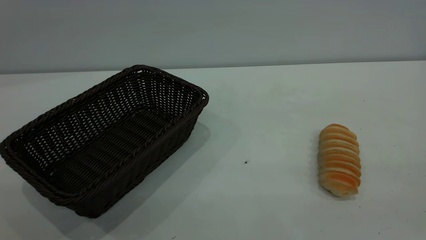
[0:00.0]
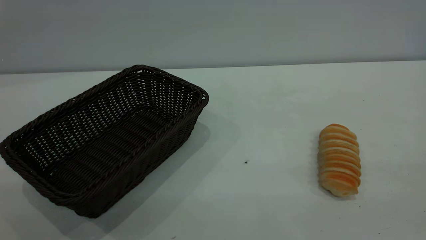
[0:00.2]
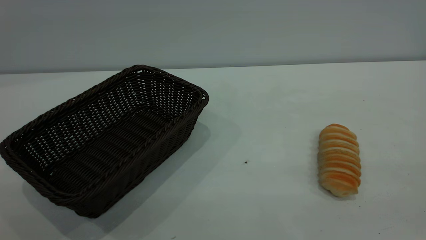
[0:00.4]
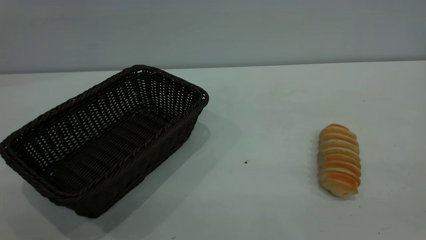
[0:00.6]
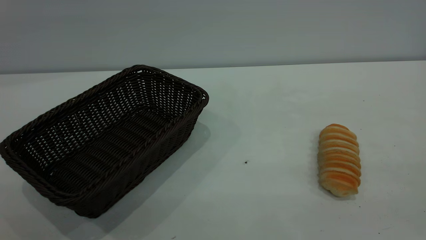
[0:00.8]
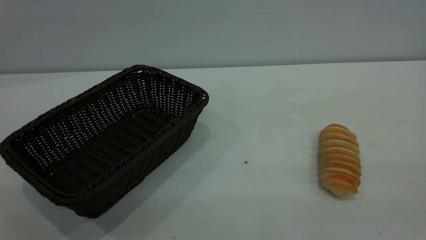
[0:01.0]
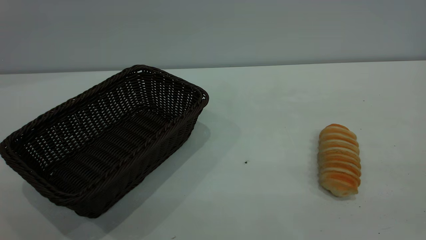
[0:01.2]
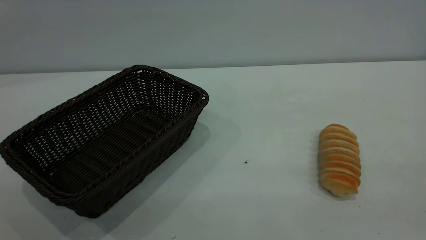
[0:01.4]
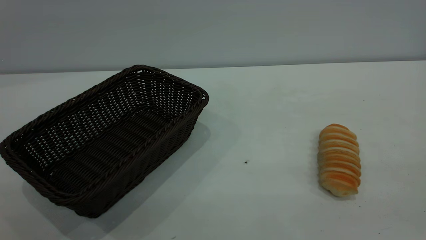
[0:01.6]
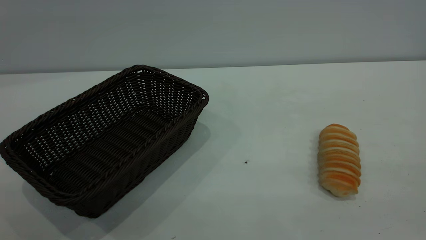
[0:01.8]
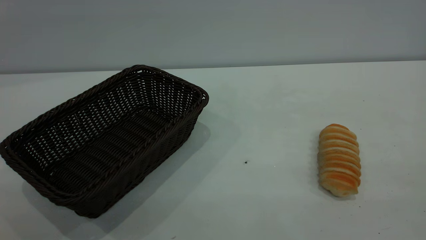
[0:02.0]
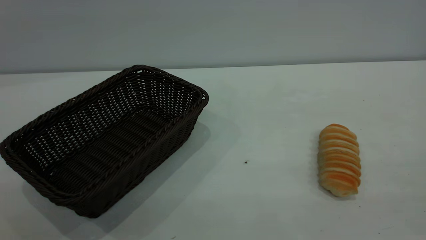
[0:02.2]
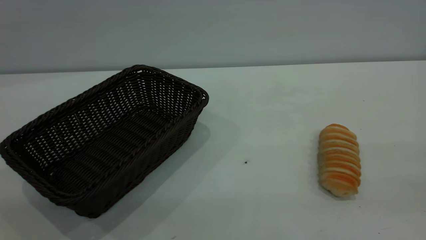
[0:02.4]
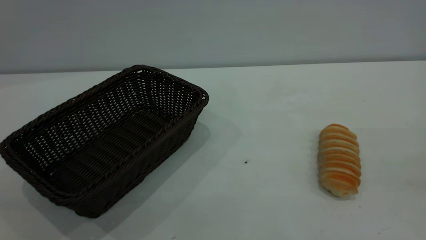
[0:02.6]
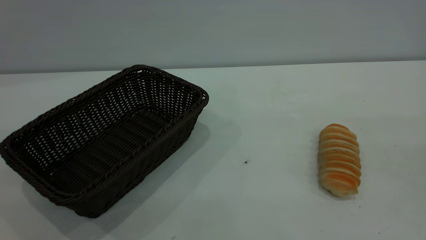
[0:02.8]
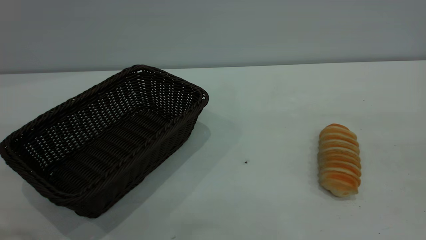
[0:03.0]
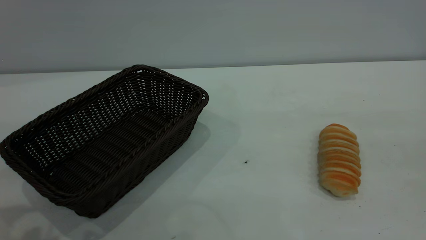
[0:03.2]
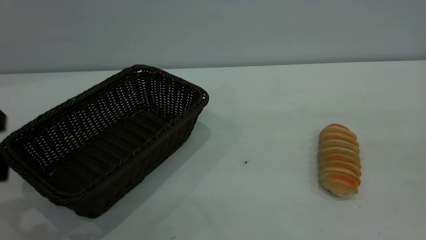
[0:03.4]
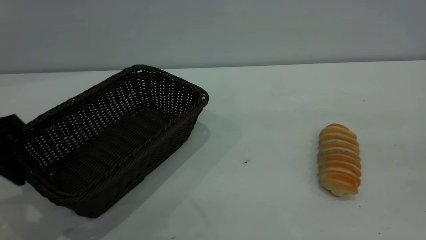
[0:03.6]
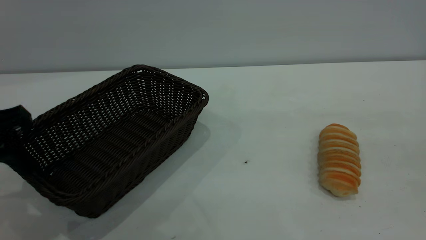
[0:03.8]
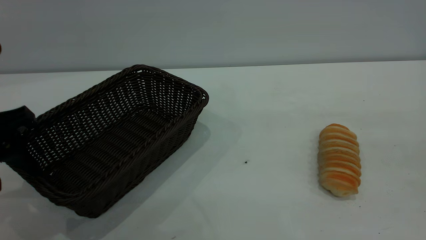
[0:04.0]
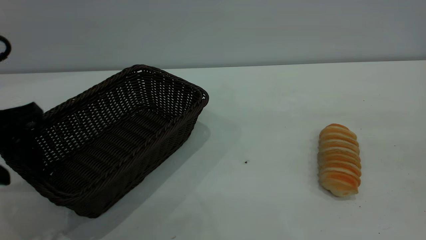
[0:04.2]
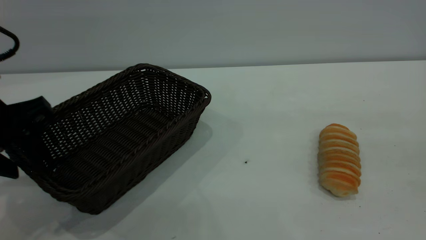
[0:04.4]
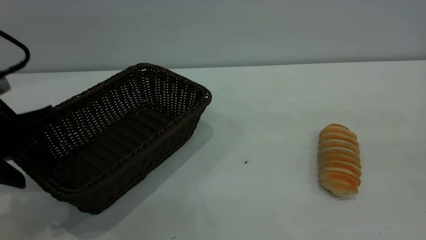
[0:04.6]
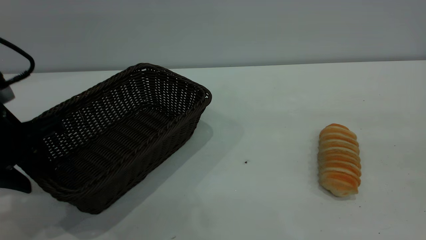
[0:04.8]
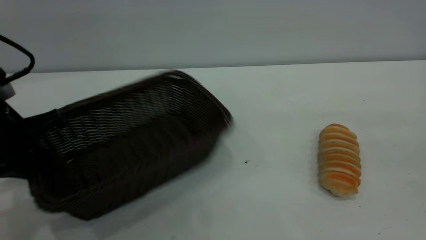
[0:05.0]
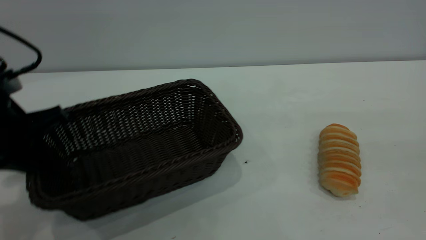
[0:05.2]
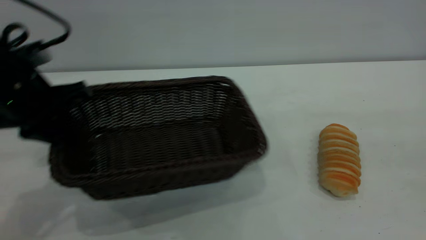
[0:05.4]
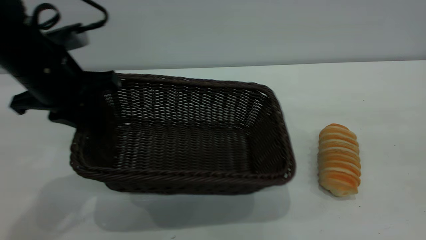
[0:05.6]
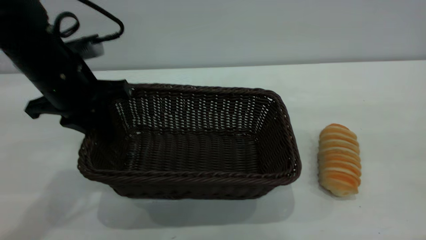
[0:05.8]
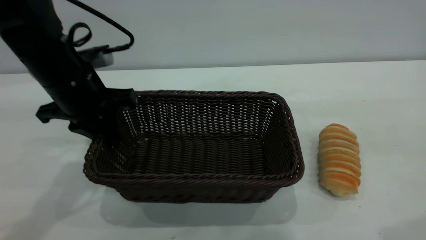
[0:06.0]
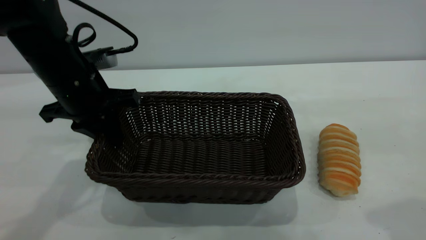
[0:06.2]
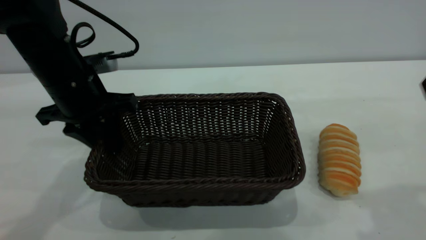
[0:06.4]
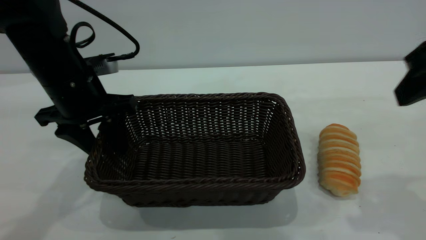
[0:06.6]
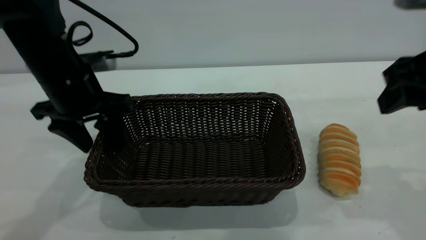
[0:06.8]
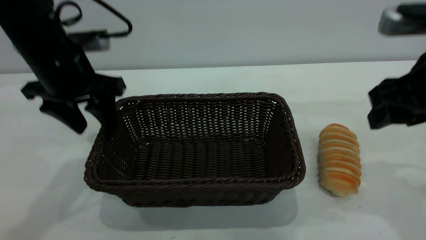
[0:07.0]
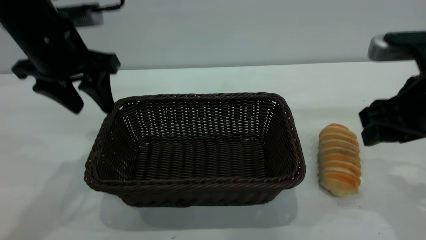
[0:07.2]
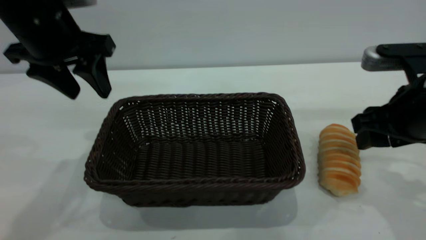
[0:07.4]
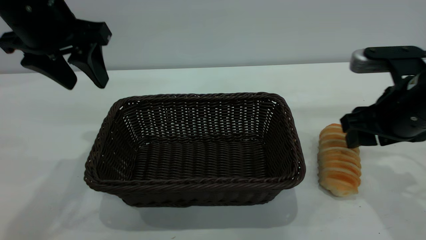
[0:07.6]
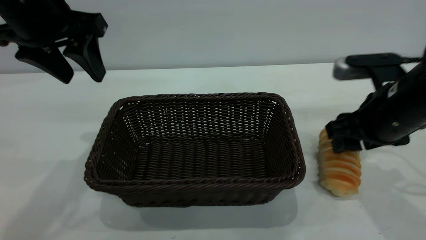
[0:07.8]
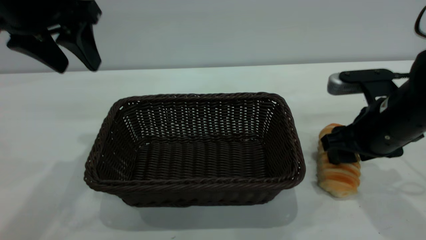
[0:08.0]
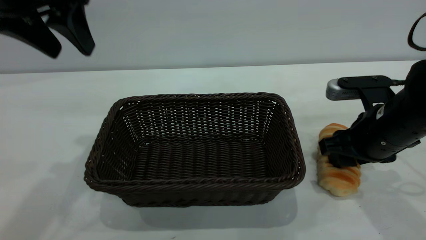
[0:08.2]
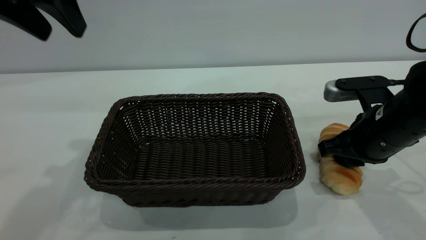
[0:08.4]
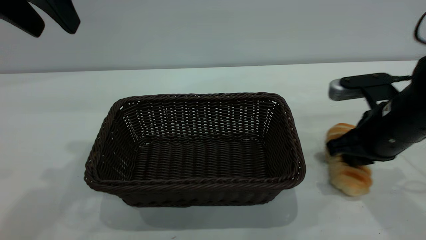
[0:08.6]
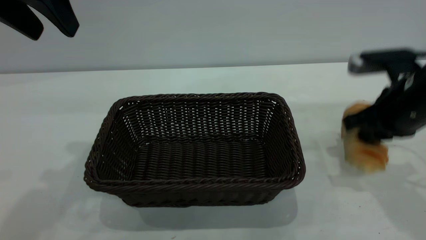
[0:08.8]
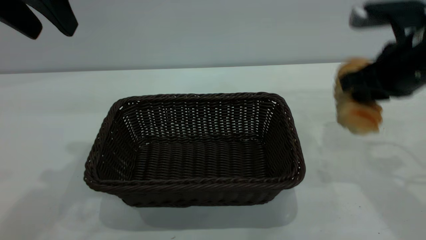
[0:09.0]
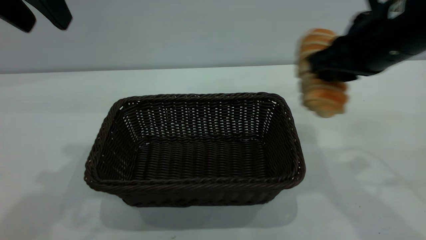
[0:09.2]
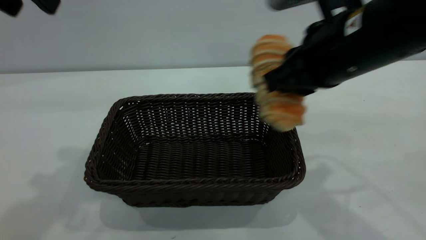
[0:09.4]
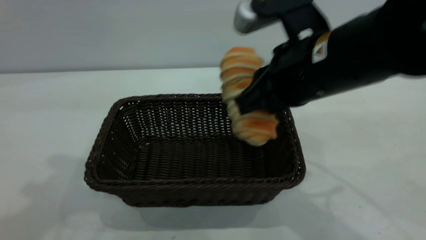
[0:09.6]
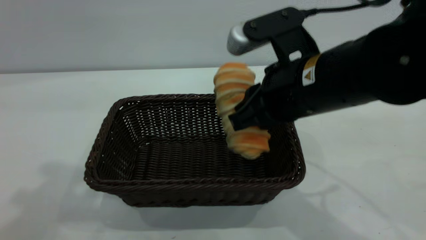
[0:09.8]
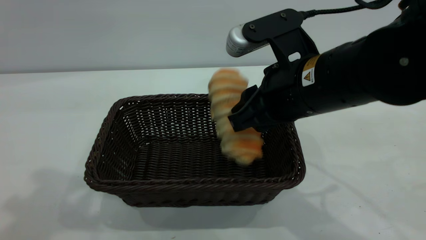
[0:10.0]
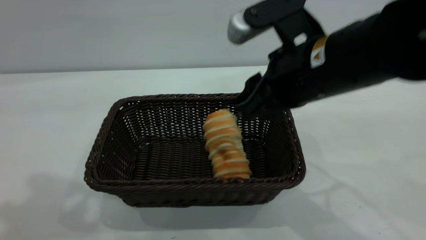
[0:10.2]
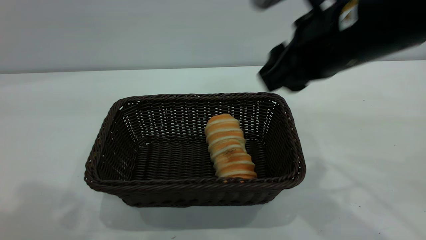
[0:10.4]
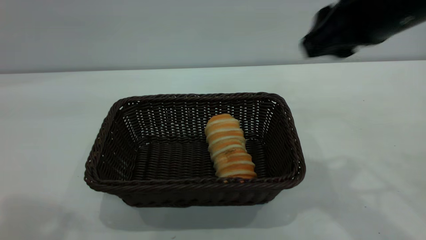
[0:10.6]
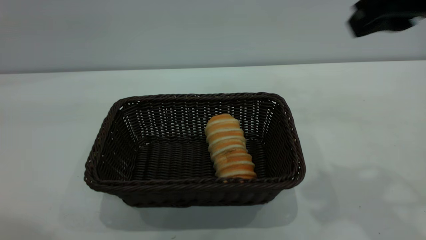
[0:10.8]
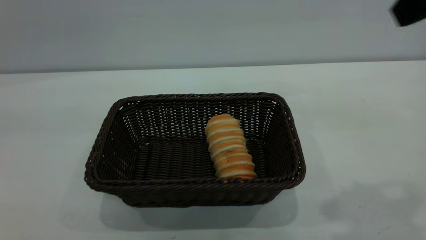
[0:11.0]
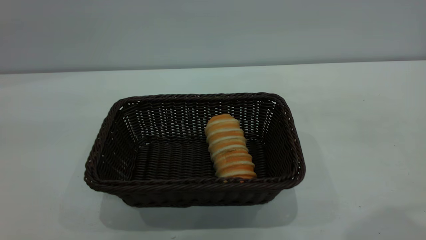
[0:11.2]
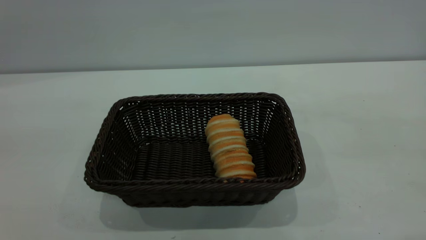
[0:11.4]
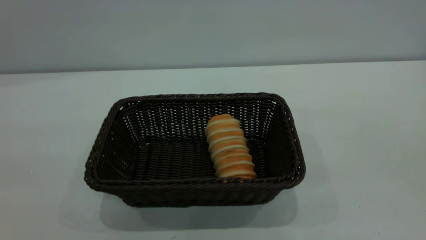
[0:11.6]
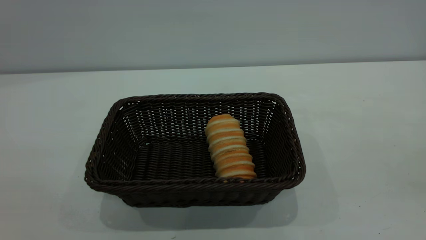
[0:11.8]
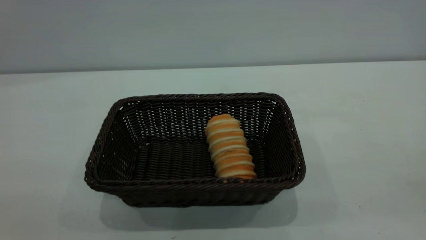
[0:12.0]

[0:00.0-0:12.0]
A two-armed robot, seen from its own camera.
Task of the whole recording: One hand grasps the black basket and places it in the middle of the table, while the other hand picks up the long bread and puts it into the black basket.
Step, 0:00.0 to 0:07.2: Move the basket to the center of view.
Step, 0:09.0 to 0:10.4: place the bread into the basket.
0:00.0 to 0:01.6: The two grippers keep their place.
0:03.0 to 0:04.4: The left gripper is displaced downward and forward by approximately 15 cm.
0:04.4 to 0:06.0: The right gripper goes about 5 cm forward; the left gripper heads forward and to the right, covering roughly 10 cm, and closes.
0:06.0 to 0:07.6: The right gripper heads downward and forward, covering roughly 25 cm, and opens up; the left gripper moves upward, some 10 cm, and opens.
0:07.6 to 0:09.0: The grippers both shift upward by some 5 cm. The right gripper closes its fingers.
0:09.0 to 0:10.4: The right gripper travels to the left by approximately 10 cm, and opens; the left gripper moves upward and backward, approximately 15 cm.
0:10.4 to 0:12.0: The left gripper heads backward, covering approximately 25 cm; the right gripper goes approximately 30 cm backward, to the right and upward.

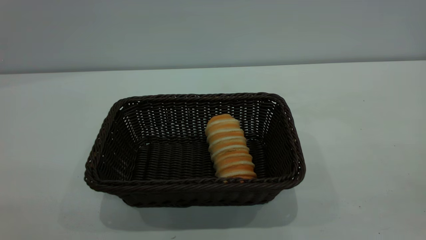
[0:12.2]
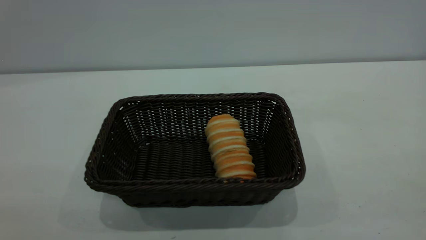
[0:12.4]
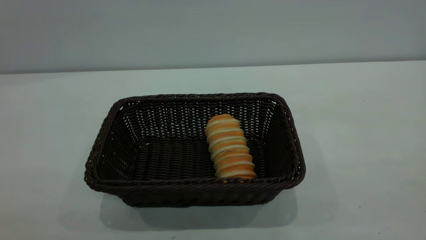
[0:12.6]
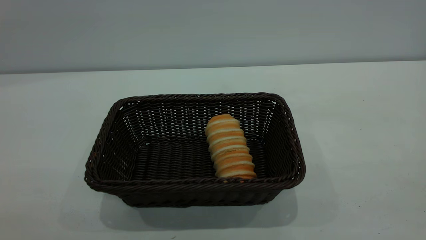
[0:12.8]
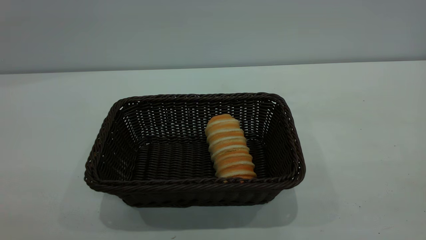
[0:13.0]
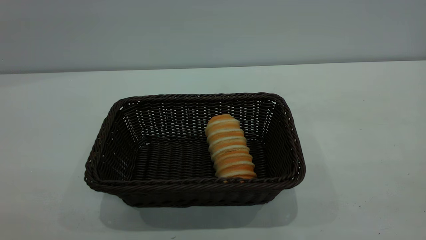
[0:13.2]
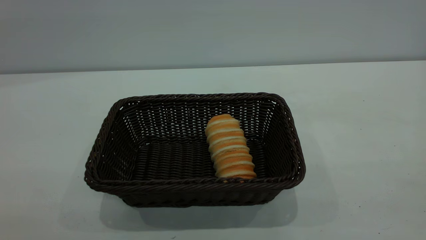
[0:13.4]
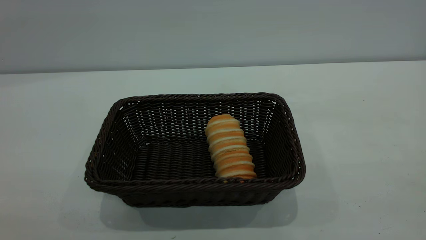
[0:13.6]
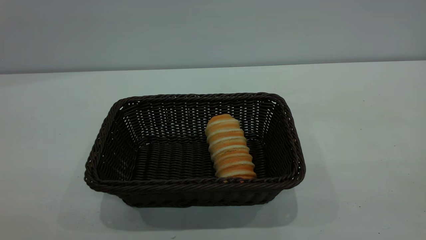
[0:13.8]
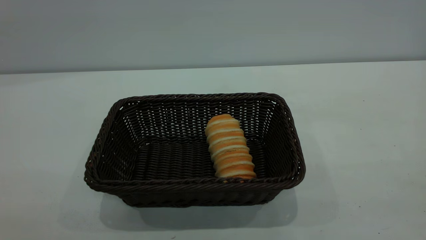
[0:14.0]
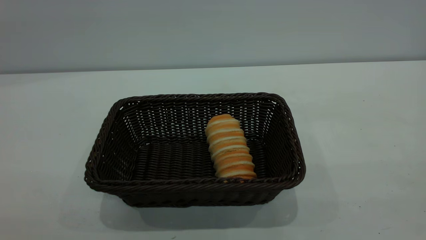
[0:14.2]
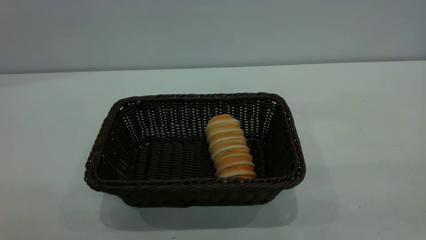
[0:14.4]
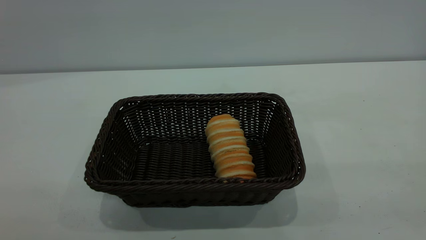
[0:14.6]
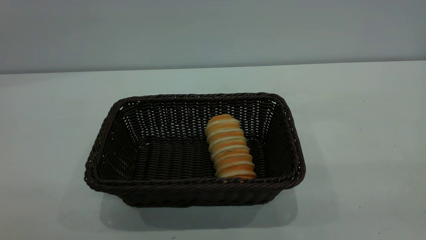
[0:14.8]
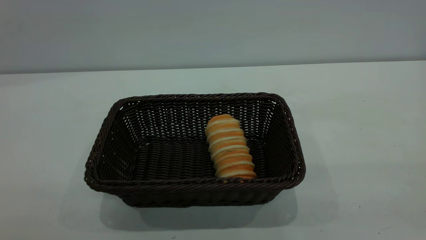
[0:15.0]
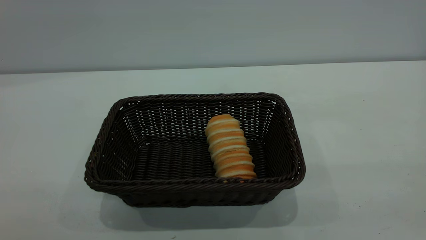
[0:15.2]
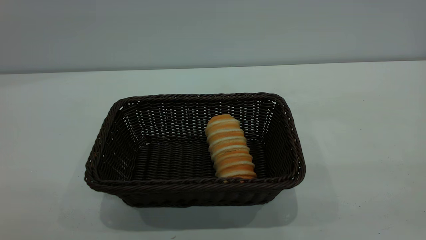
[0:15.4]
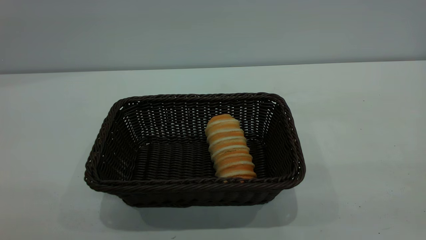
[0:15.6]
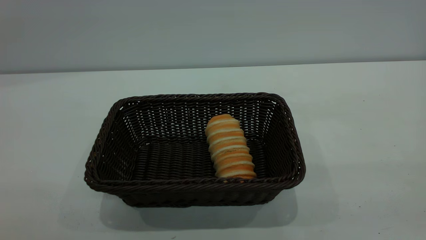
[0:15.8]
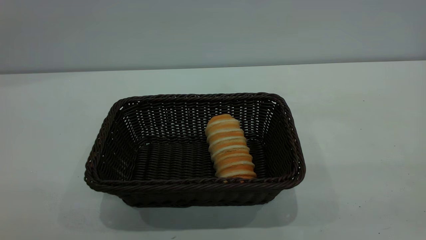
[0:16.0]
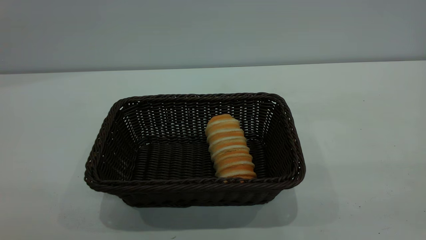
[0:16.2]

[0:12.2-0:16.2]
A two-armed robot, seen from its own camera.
Task of the whole recording: One hand grasps the black basket and places it in the middle of the table, while the other hand picks up the long bread and puts it into the black basket.
0:14.8 to 0:16.2: Both grippers stay about where they are.
